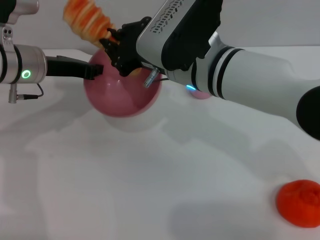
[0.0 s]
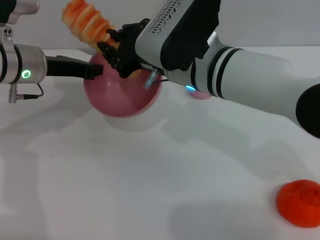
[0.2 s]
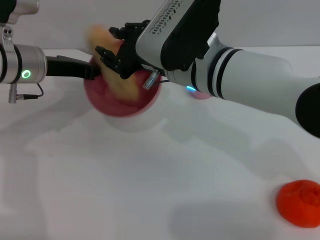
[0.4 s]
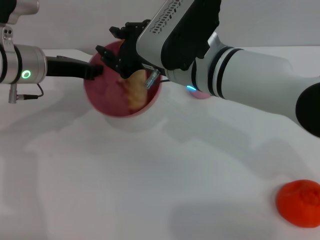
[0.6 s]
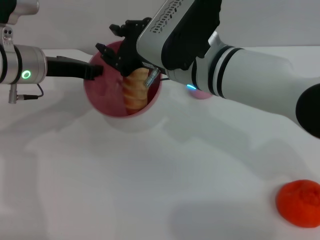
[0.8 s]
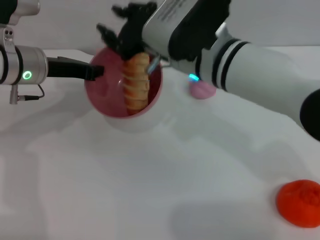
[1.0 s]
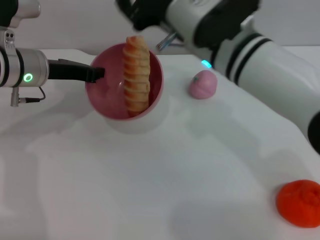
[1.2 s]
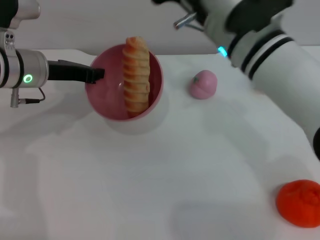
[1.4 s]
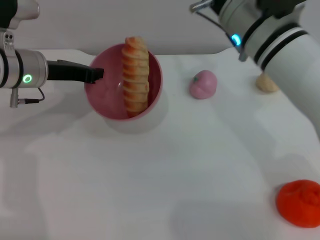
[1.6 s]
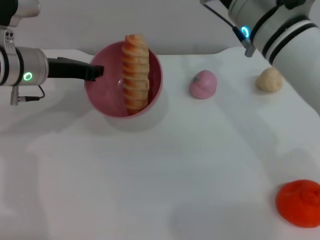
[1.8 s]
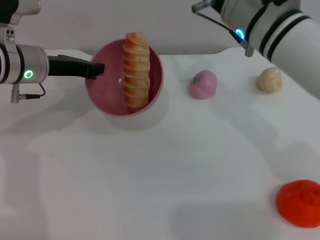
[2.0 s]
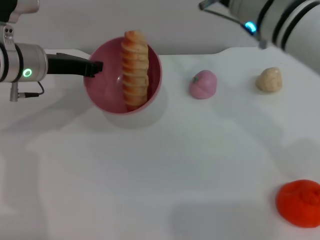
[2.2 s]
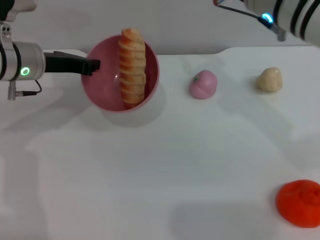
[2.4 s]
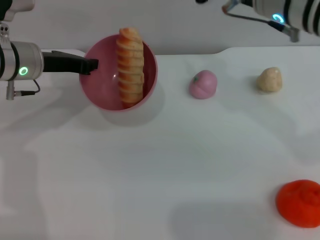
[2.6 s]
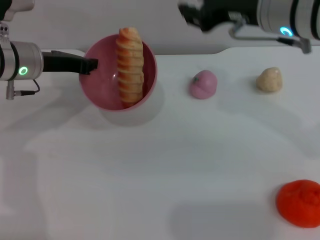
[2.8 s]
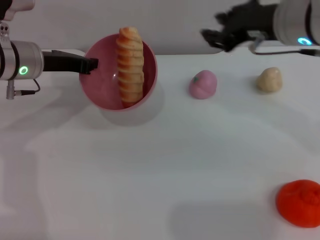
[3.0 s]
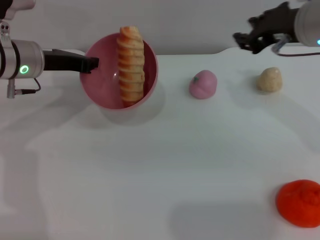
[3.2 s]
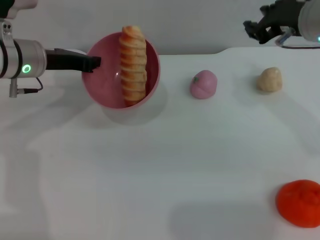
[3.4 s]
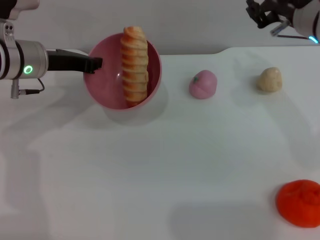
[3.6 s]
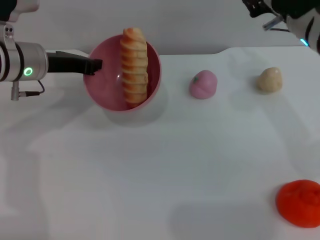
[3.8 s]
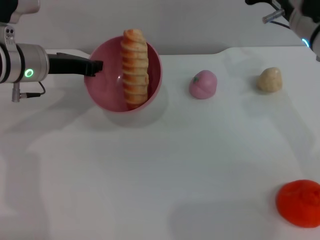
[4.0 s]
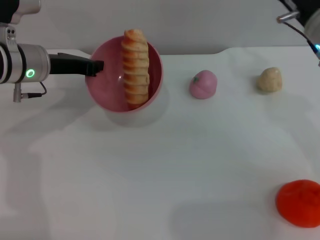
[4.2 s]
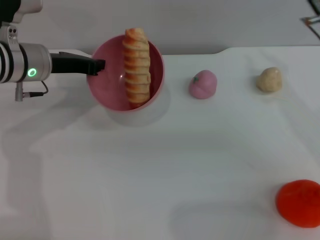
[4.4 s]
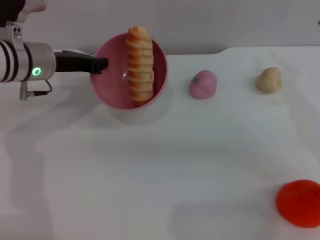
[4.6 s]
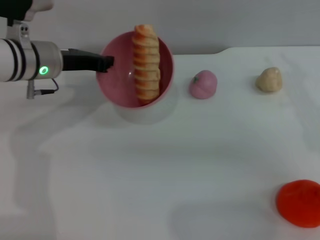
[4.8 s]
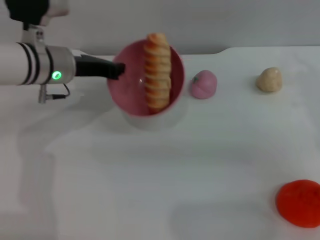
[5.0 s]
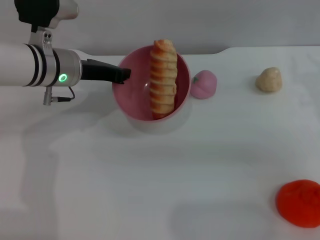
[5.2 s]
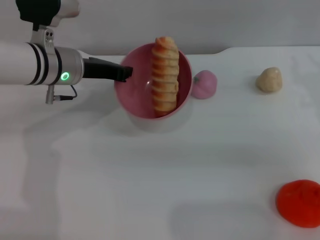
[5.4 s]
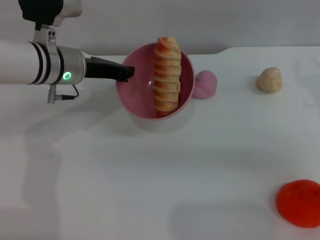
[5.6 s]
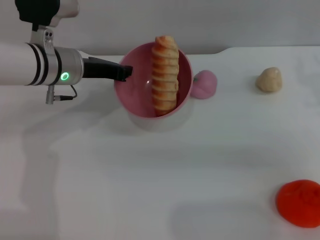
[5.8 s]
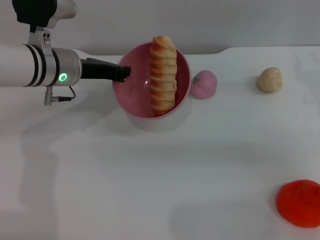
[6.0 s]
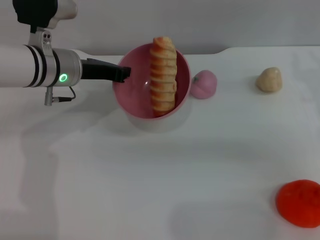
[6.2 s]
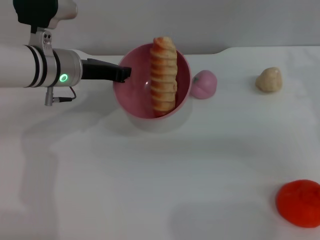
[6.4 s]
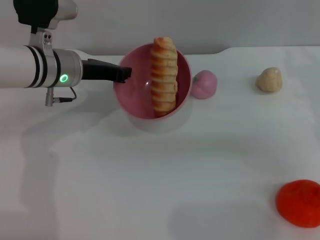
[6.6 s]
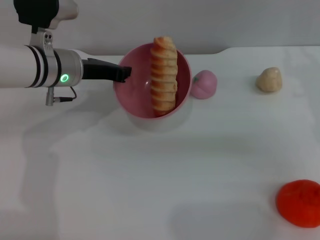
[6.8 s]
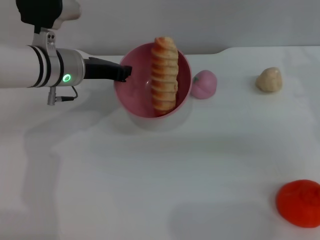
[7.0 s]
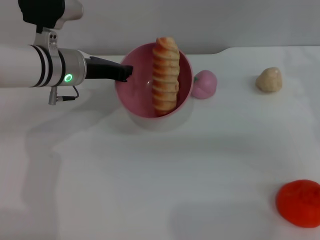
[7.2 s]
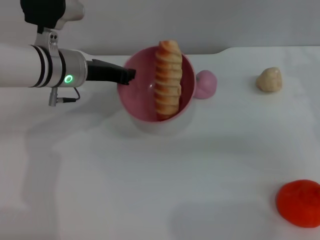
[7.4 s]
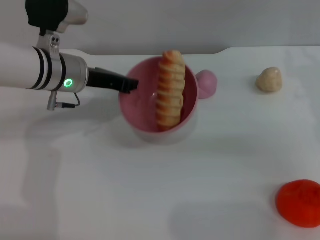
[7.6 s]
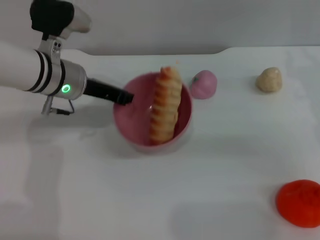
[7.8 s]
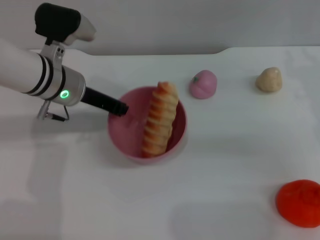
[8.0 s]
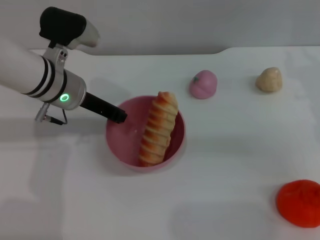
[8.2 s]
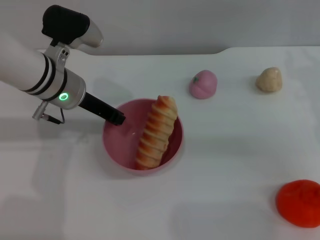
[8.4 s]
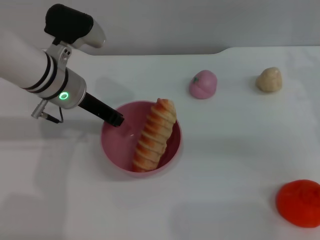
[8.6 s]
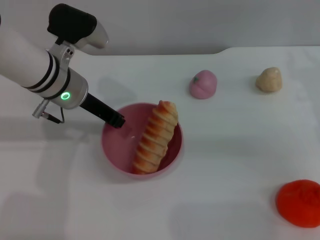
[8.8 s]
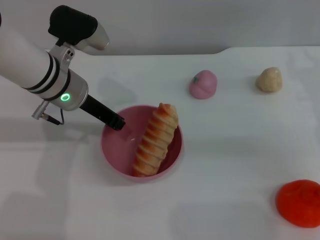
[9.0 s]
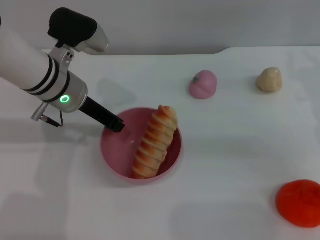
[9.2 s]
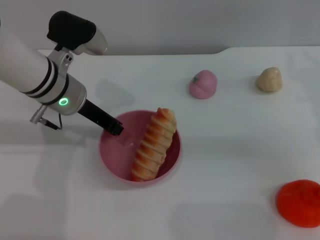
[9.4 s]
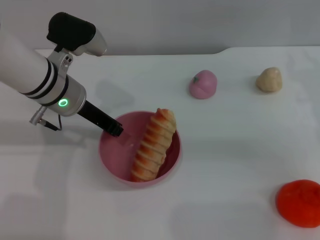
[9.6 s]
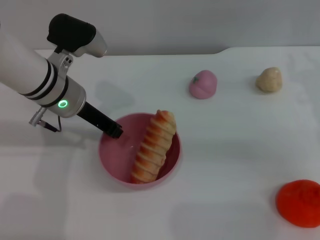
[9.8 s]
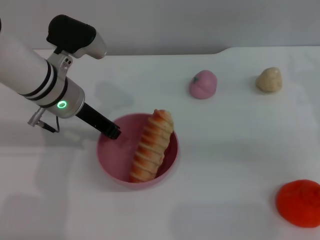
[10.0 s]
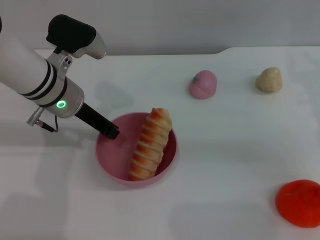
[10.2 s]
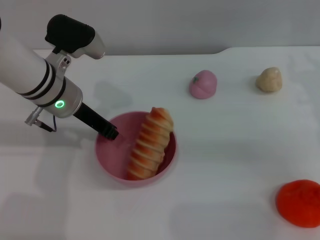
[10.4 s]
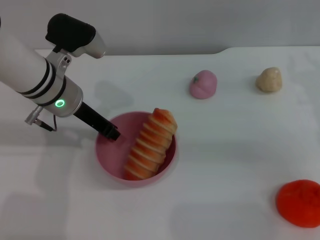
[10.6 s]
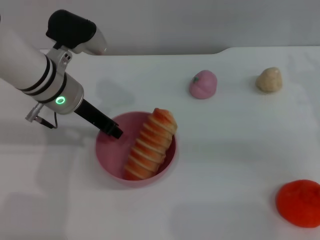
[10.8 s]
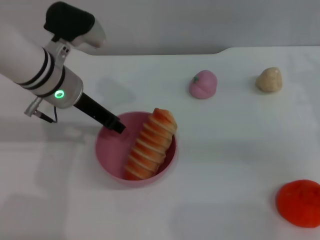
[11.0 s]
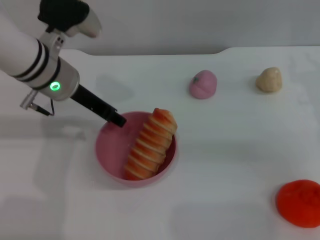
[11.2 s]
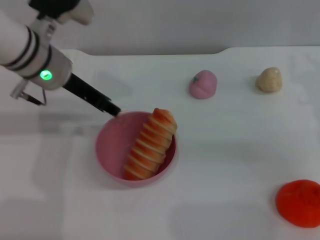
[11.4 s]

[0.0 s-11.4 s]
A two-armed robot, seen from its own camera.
Task of the whole recording: put the bread into the pink bowl and pour it out repeatedly.
Step, 1.2 to 11.4 s: Place the bowl on the table.
0.0 to 1.4 s: The right gripper opens its fingers.
1.4 to 2.8 s: The right gripper goes about 5 cm to the right.
2.8 to 4.2 s: The right gripper shifts about 10 cm to the right and downward.
4.2 to 5.6 s: The right gripper is displaced to the right by roughly 10 cm. The left gripper is displaced to the right by about 5 cm.
5.6 to 7.2 s: The grippers move only a little.
8.6 to 10.0 s: Both grippers stay about where they are.
10.0 to 11.4 s: The left gripper is displaced upward by roughly 5 cm, and opens.

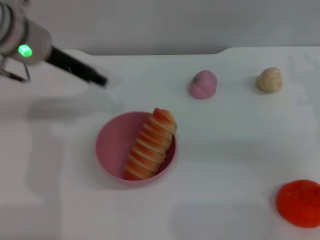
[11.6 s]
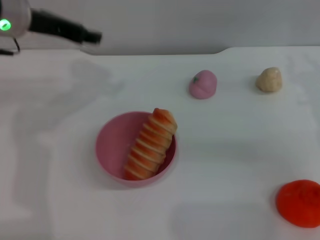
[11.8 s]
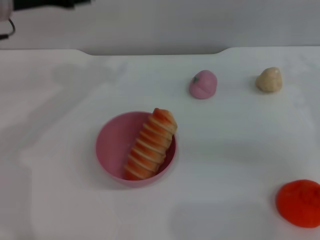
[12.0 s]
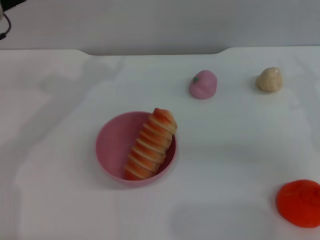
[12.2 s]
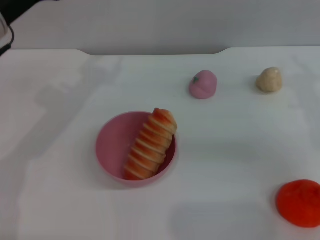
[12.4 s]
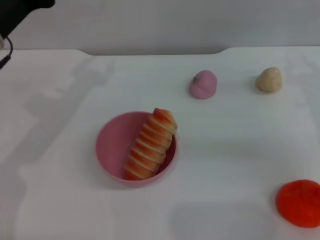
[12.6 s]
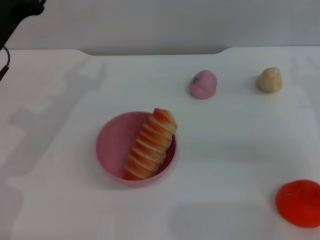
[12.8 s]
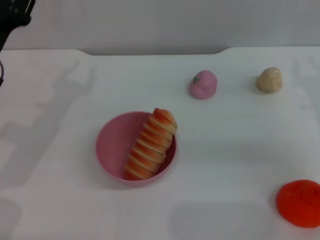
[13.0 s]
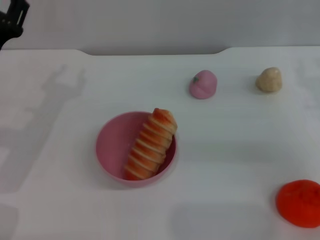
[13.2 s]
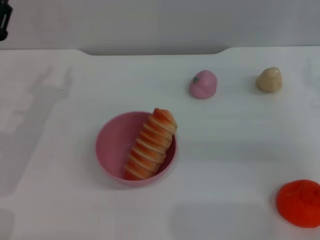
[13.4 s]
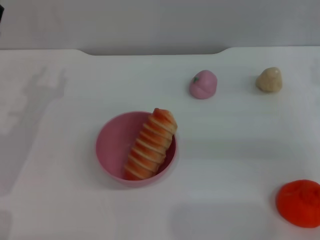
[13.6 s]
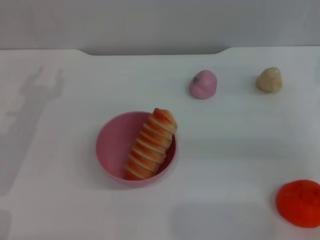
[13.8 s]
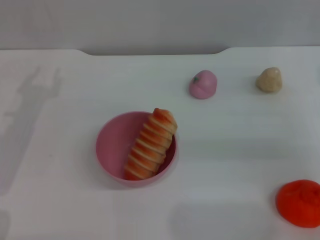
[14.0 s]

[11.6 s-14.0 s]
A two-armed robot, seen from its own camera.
Task of the whole recording: put the bread into the pink bowl and pour it out repeatedly.
11.6 to 12.8 s: The left gripper goes about 10 cm to the left, backward and downward.
12.8 to 14.0 s: The left gripper changes place by approximately 5 cm.
